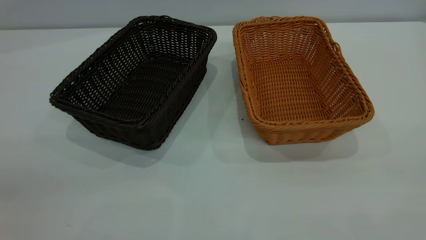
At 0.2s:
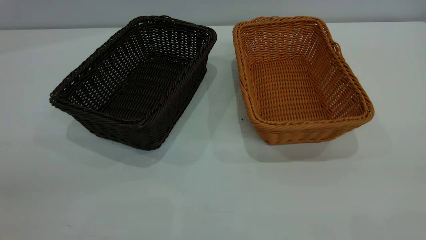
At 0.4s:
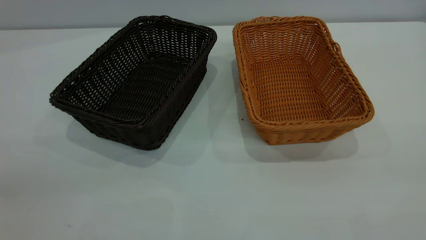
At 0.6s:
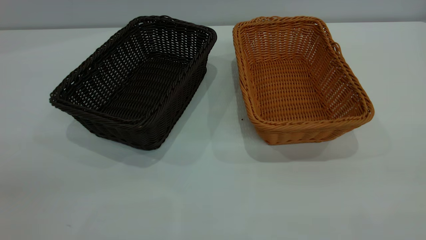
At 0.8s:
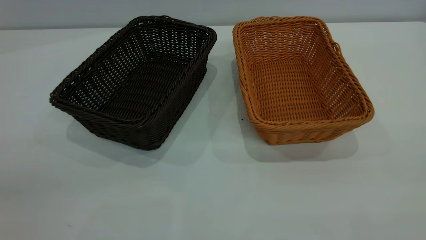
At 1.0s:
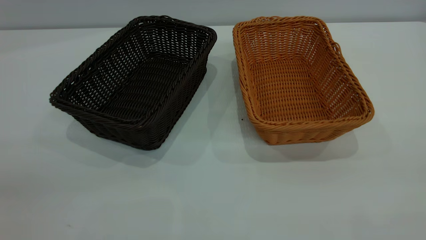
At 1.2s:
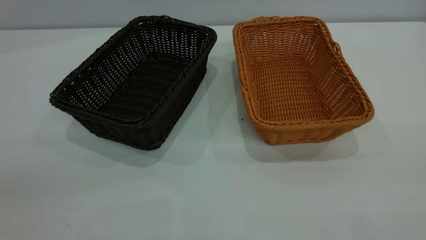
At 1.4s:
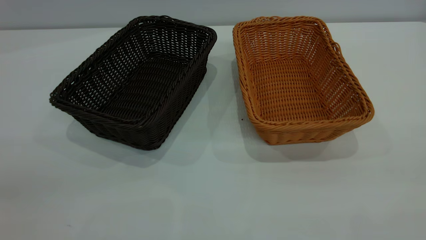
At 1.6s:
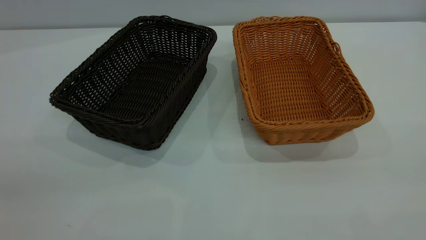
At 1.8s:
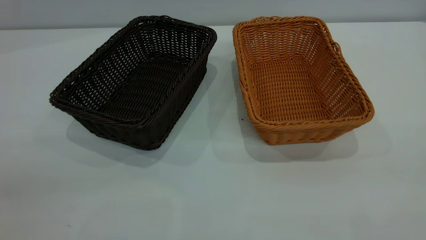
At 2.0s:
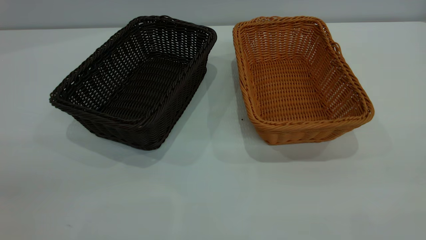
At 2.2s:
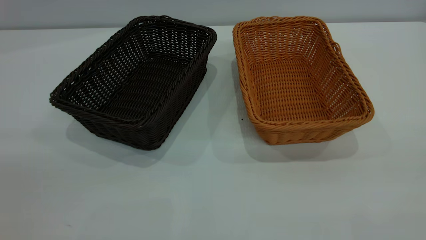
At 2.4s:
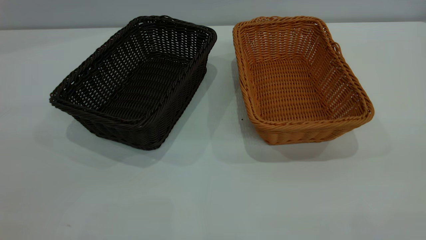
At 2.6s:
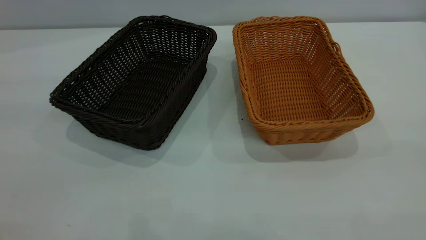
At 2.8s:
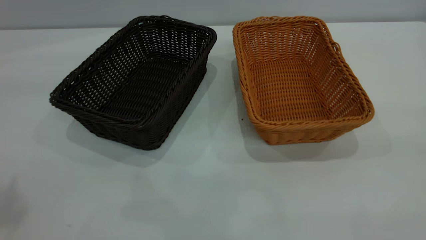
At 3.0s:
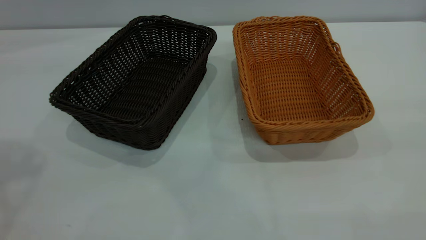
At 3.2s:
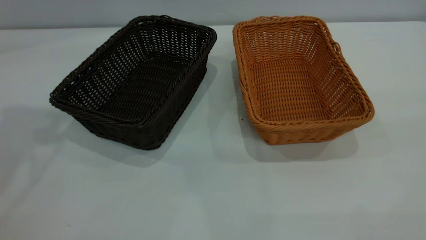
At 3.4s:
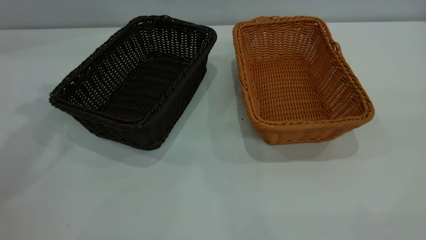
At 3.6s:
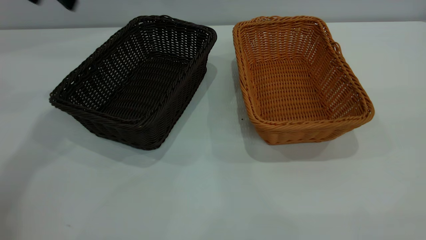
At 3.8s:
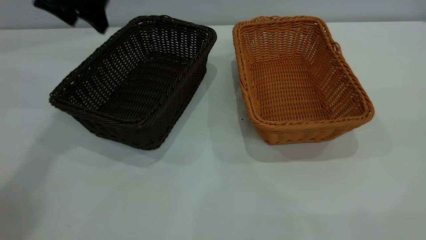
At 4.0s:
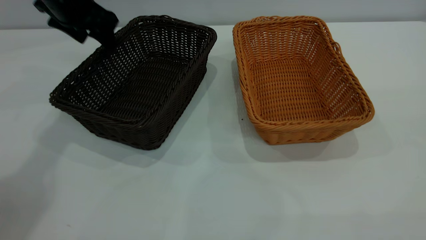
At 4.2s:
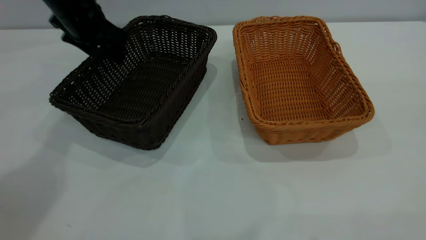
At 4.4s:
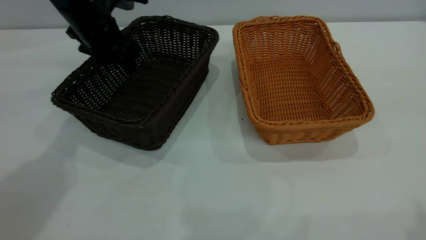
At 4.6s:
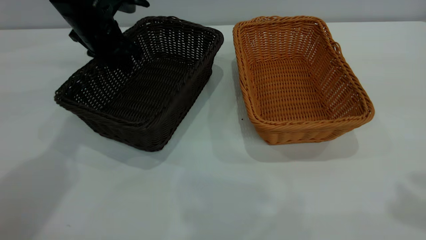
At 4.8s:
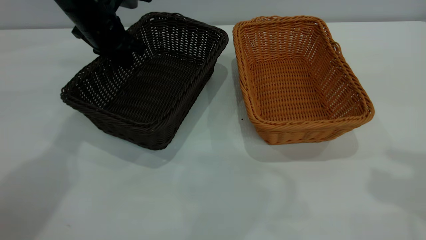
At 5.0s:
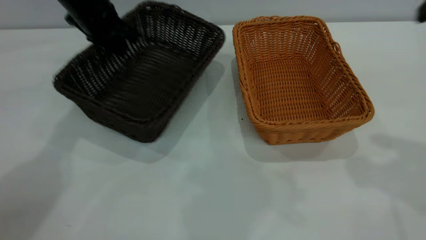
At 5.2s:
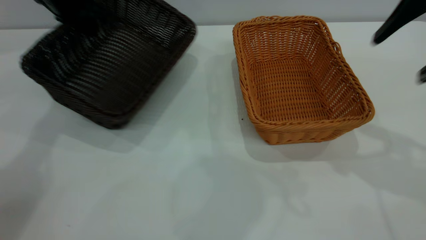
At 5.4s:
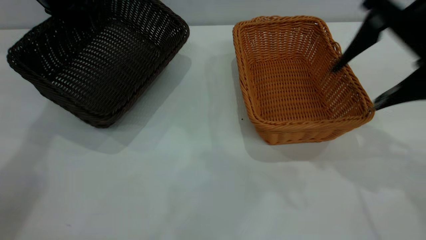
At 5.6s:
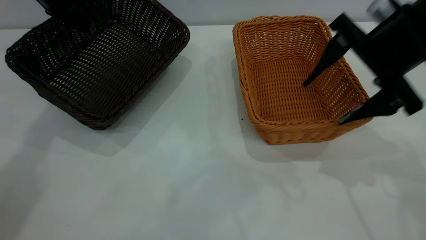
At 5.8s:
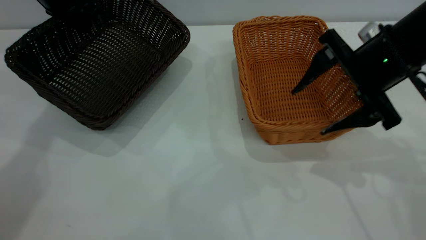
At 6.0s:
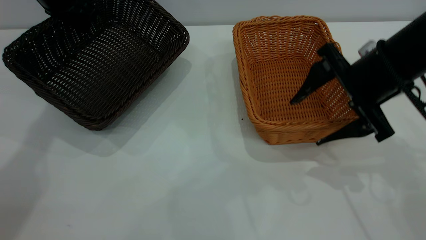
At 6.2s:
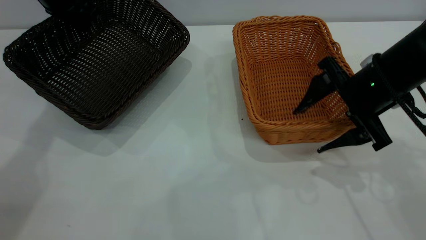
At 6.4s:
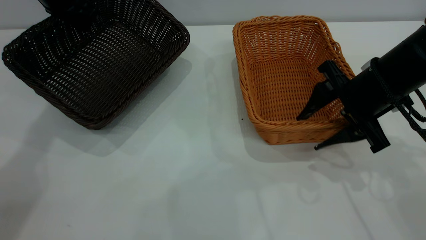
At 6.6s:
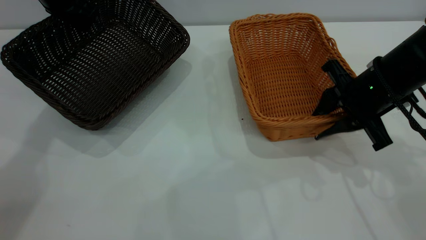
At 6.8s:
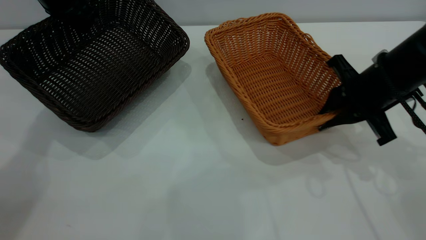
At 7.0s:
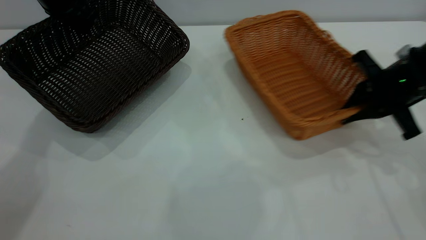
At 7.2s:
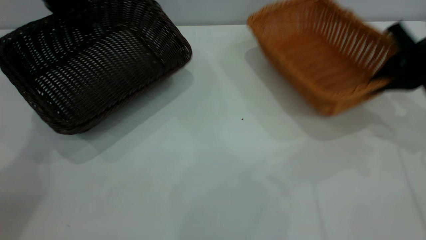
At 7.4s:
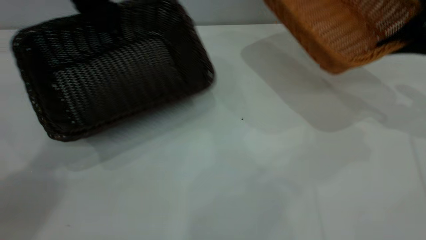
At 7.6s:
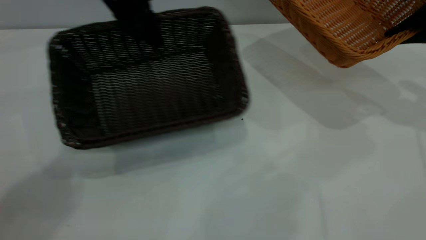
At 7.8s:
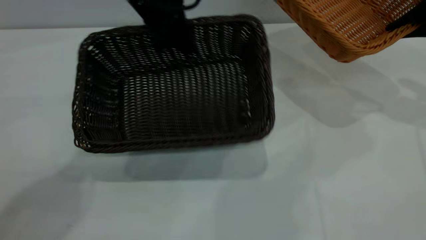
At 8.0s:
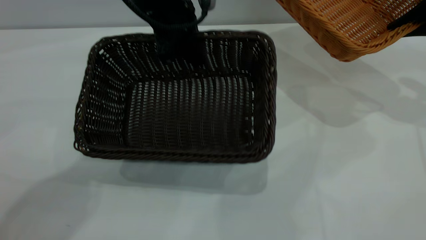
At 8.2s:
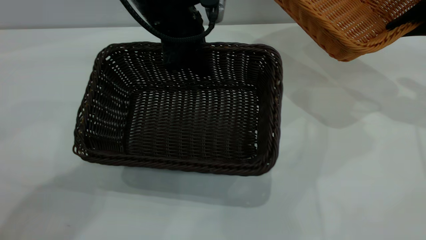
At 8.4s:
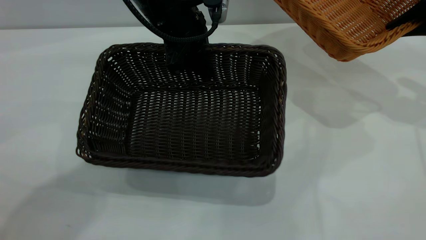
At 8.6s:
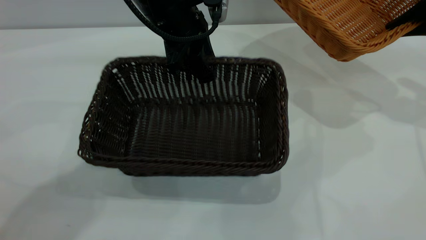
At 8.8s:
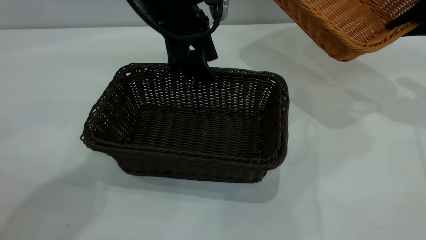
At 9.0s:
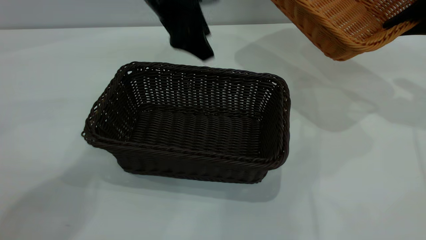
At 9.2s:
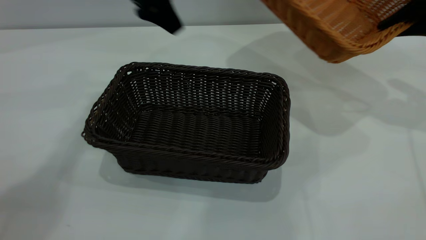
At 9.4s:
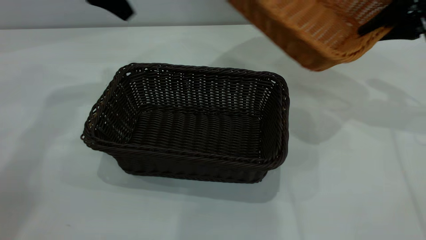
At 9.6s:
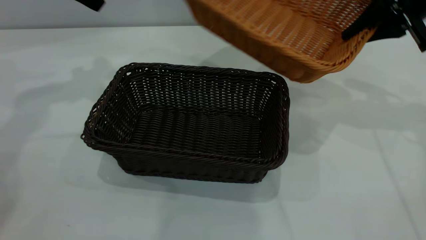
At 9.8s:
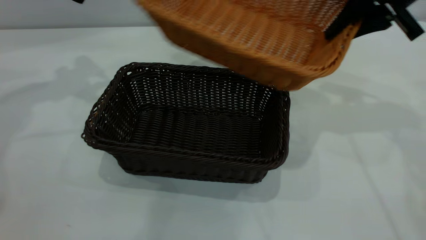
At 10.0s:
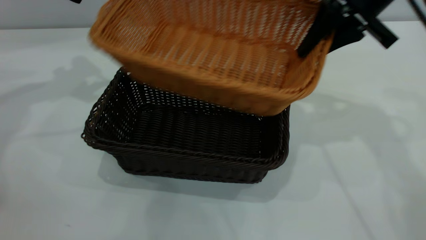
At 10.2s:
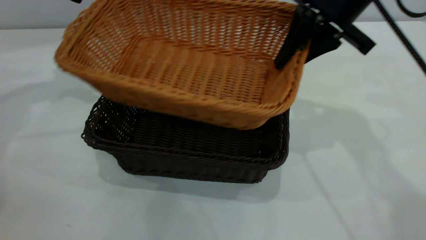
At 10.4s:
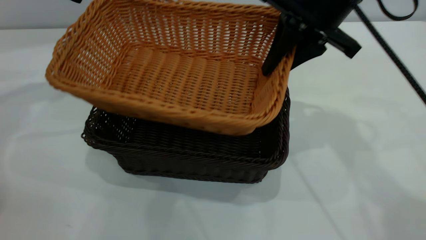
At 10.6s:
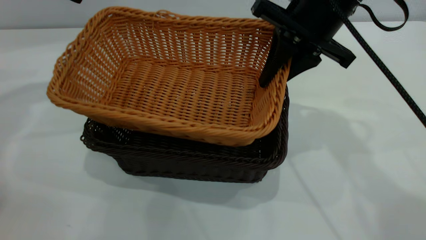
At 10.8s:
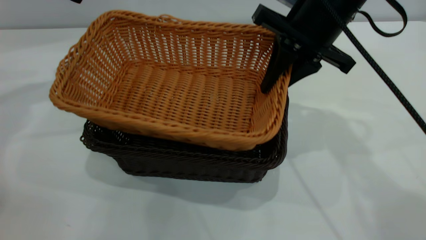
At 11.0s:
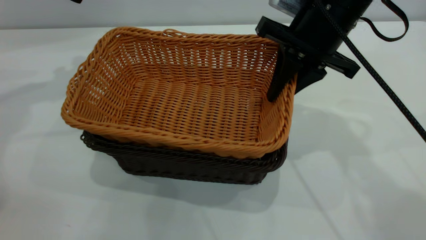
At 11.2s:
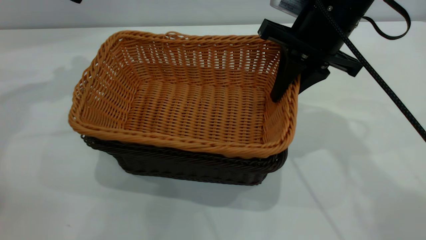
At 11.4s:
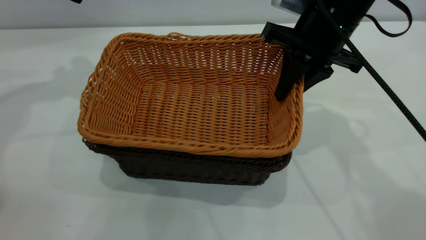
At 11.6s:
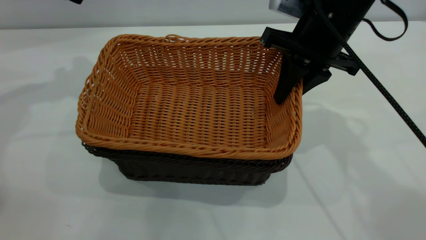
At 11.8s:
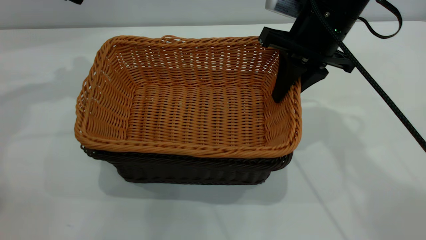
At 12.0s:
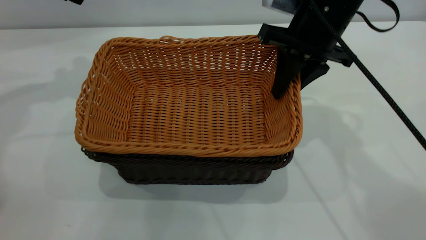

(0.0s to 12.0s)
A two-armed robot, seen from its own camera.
Task of the whole recording: the left gripper grasp the black basket and place it in the center of the table, the right gripper grasp the brown basket and place it inside the black one.
Step, 3.6s - 4.6s: Grasp the dark basket with left gripper.
Step, 5.0s - 6.8s: Grasp the light basket with right gripper.
Step, 7.0s - 8.8s: Place the dark basket in the center of the table with left gripper.
0.0s - 1.6s: Both grippers stay put.
3.0s - 4.4s: The left gripper travels downward, forward and to the right by roughly 35 cm.
4.4s - 6.0s: The left gripper travels upward and to the left by approximately 10 cm, and closes; the right gripper shifts approximately 30 cm downward and forward.
6.0s - 7.6s: The left gripper heads to the right, covering approximately 10 cm. The right gripper is displaced to the right and forward by some 15 cm, and closes.
7.6s - 9.0s: The left gripper changes place by roughly 5 cm, and opens its fingers.
9.0s - 10.4s: The two grippers go approximately 20 cm to the left.

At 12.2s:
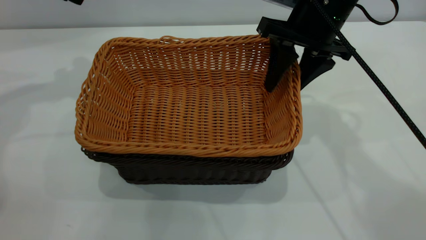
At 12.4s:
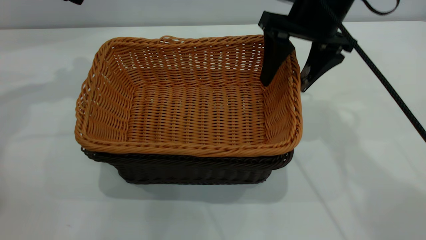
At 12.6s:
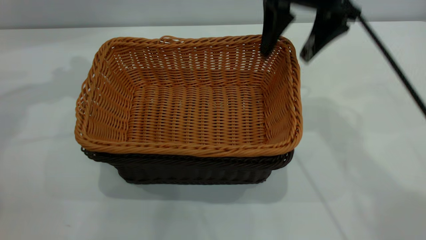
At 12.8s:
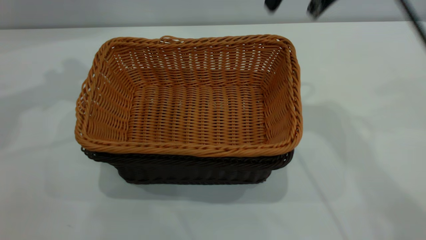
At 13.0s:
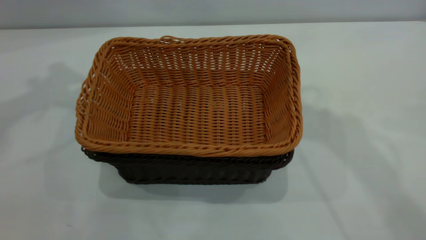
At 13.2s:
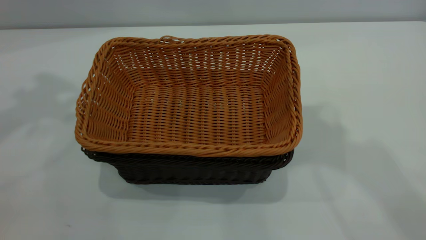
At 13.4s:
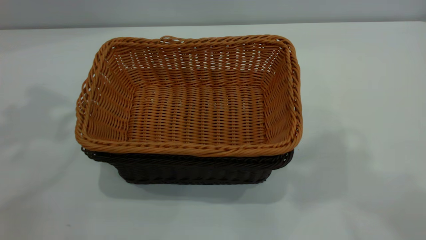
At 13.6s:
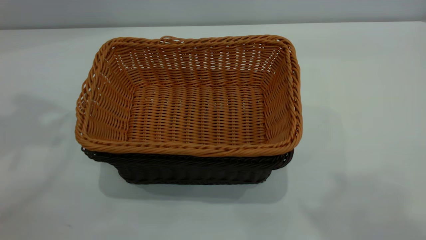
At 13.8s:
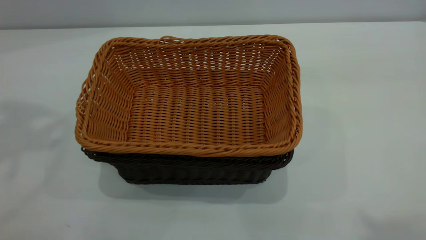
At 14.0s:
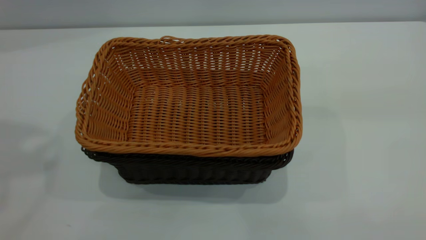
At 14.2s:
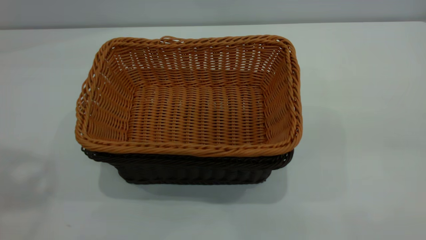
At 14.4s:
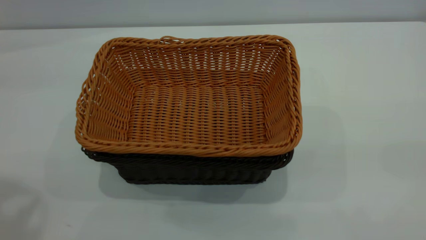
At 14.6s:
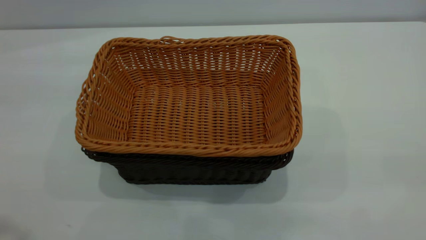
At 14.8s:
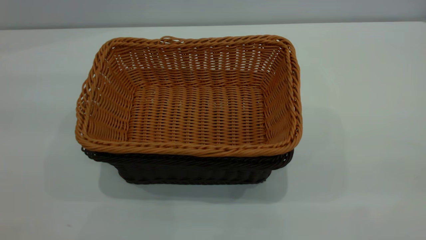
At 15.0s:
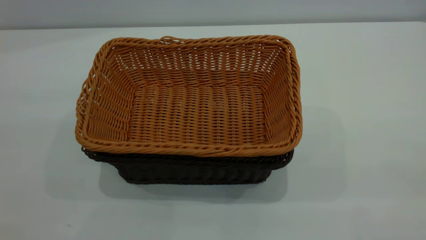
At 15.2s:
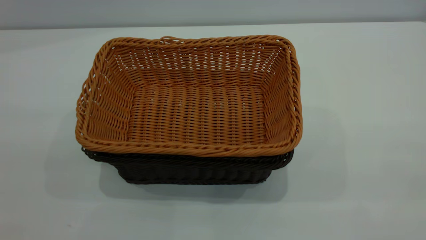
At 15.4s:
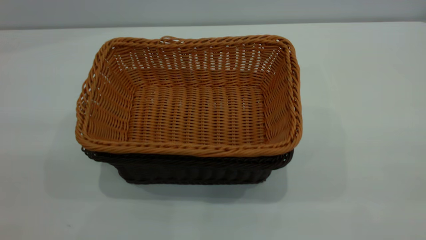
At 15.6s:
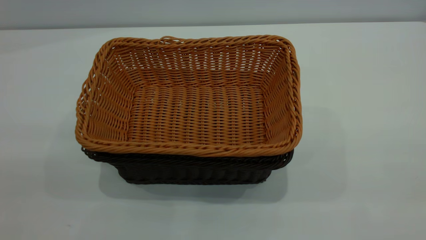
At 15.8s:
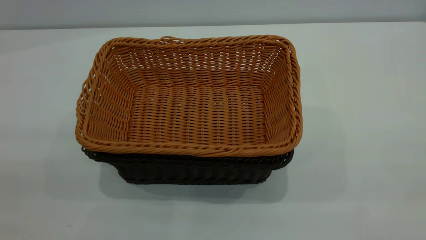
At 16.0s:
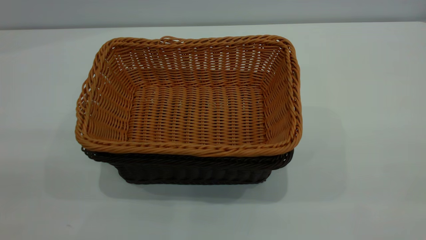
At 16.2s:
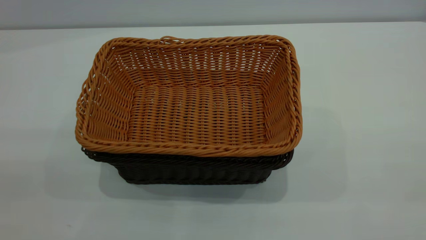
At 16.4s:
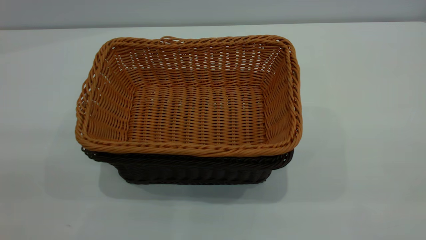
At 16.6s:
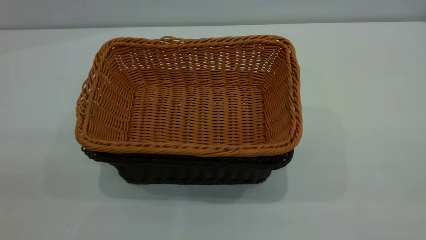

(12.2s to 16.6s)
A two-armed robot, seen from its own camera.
Task of the whole recording: the left gripper grasp the black basket and place it in the center of the table, the right gripper grasp the brown basket and place it inside the black one.
12.2s - 13.6s: Both grippers travel together upward and backward, approximately 35 cm.
